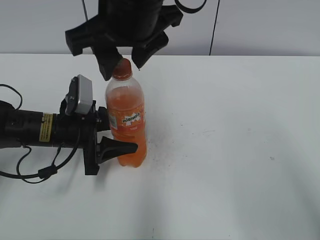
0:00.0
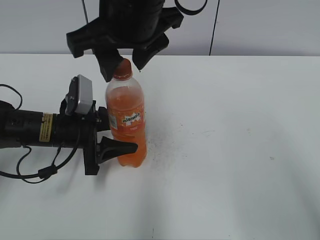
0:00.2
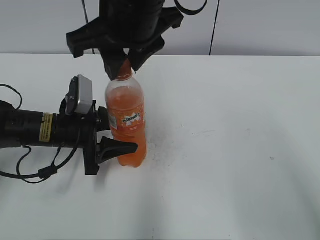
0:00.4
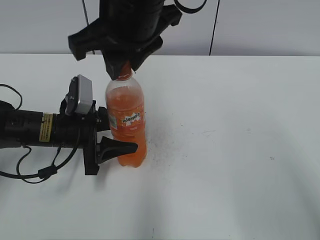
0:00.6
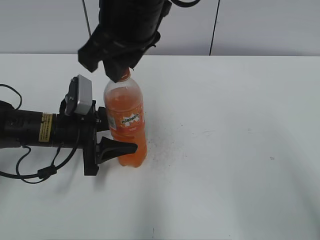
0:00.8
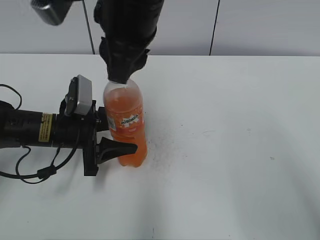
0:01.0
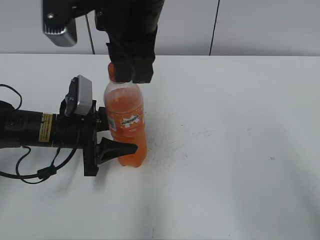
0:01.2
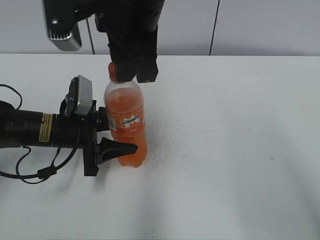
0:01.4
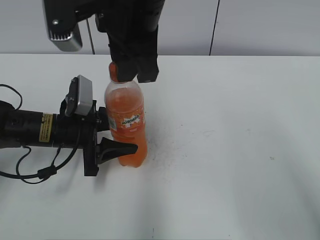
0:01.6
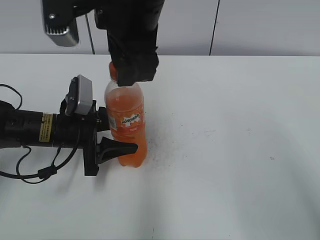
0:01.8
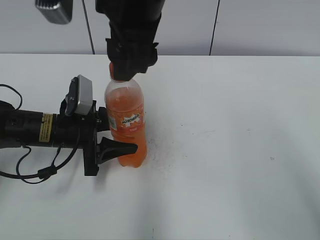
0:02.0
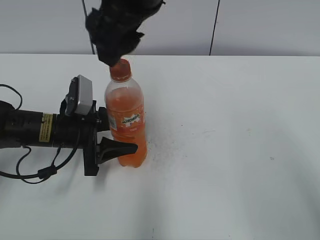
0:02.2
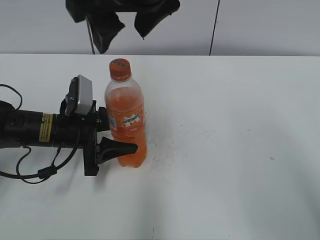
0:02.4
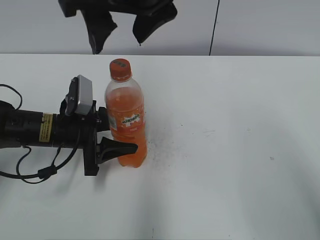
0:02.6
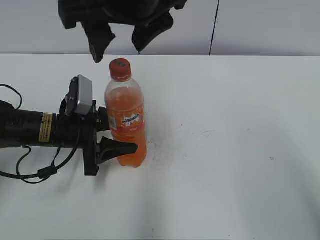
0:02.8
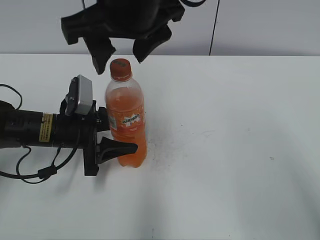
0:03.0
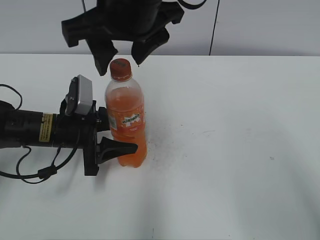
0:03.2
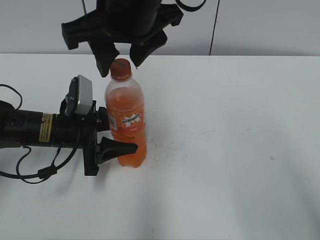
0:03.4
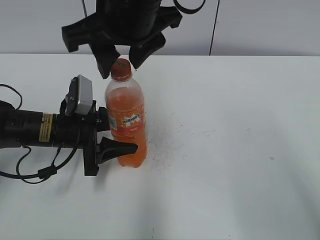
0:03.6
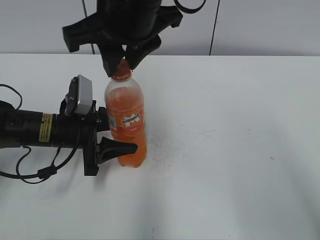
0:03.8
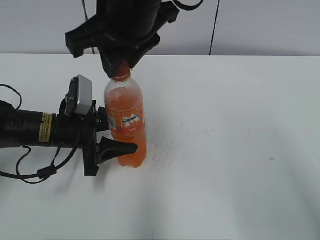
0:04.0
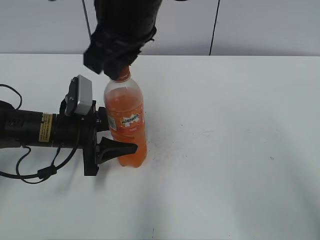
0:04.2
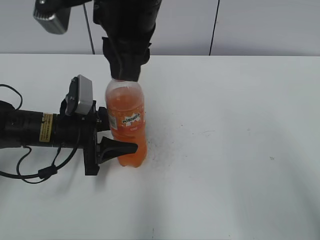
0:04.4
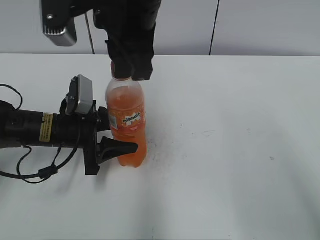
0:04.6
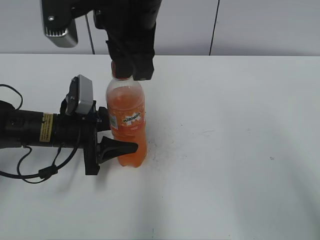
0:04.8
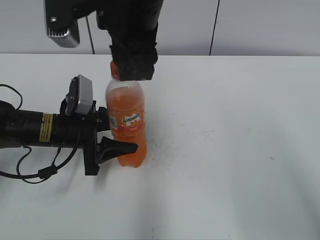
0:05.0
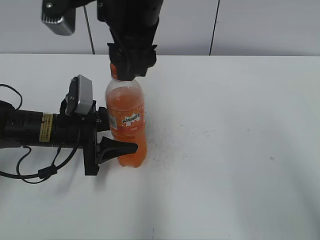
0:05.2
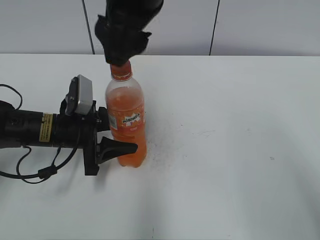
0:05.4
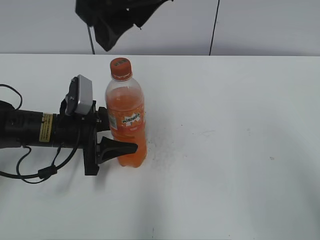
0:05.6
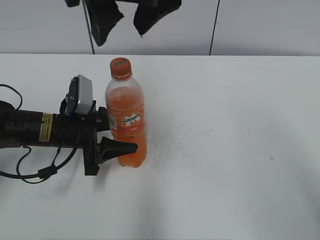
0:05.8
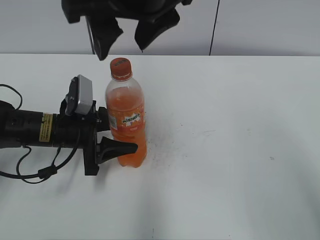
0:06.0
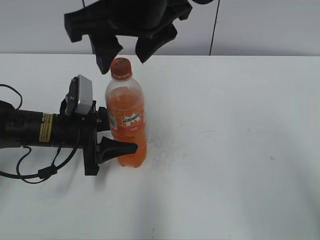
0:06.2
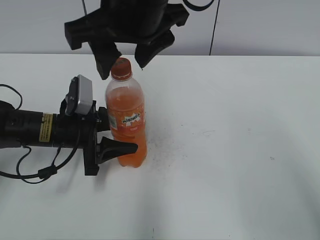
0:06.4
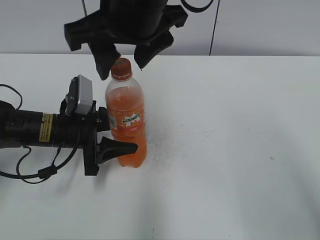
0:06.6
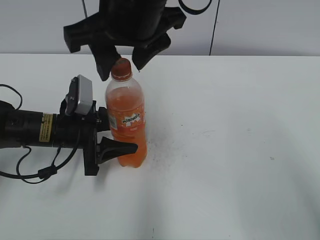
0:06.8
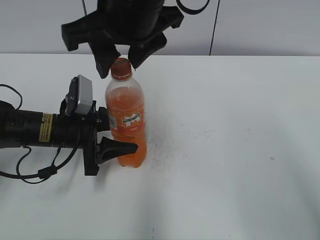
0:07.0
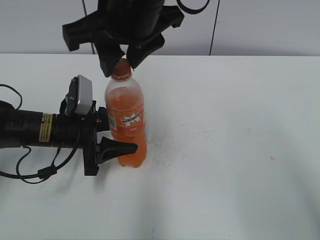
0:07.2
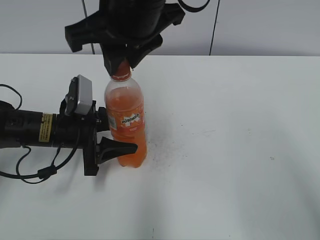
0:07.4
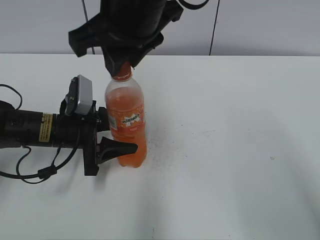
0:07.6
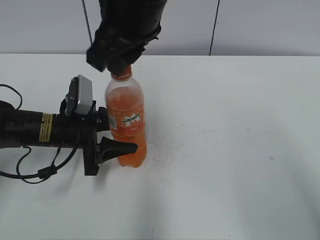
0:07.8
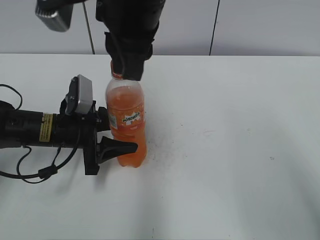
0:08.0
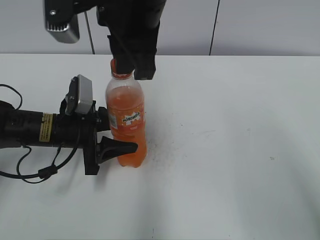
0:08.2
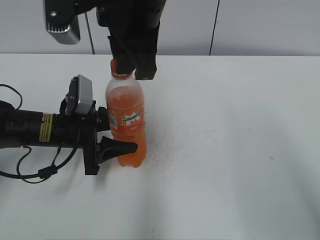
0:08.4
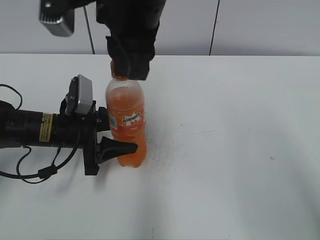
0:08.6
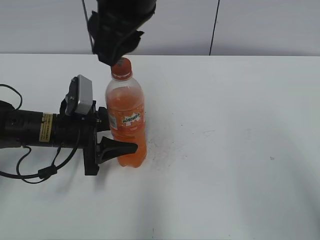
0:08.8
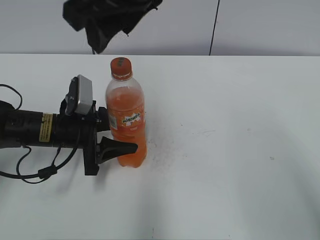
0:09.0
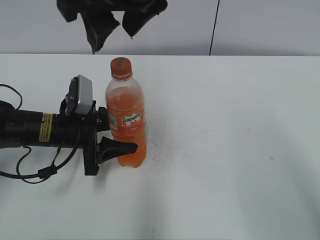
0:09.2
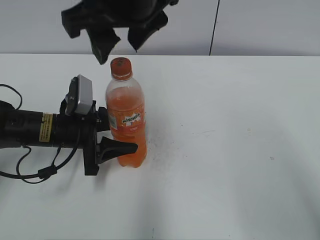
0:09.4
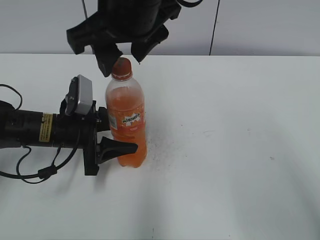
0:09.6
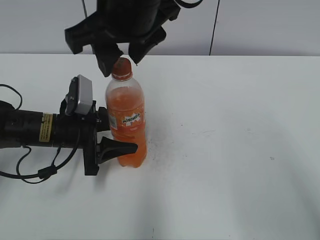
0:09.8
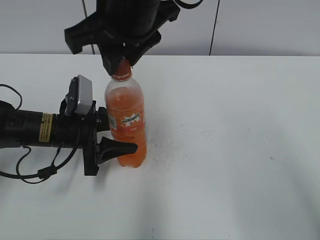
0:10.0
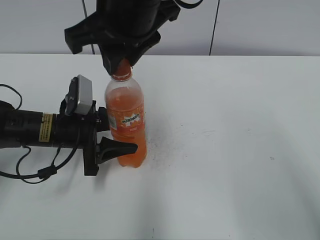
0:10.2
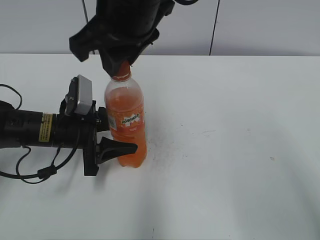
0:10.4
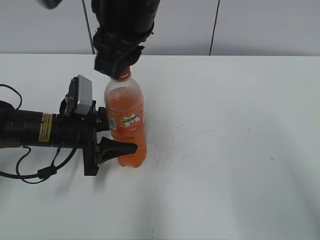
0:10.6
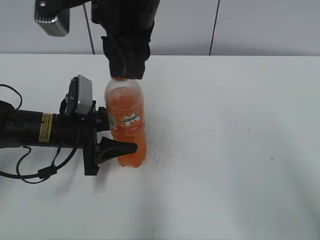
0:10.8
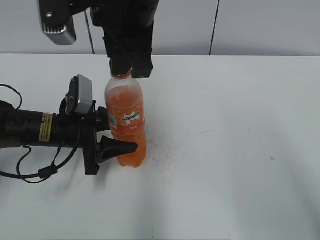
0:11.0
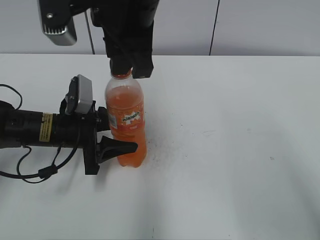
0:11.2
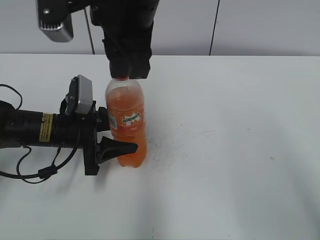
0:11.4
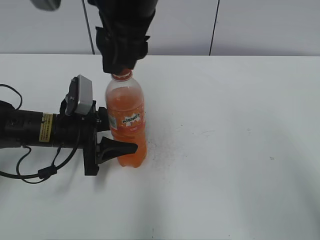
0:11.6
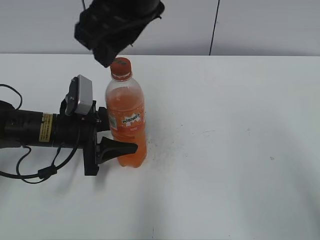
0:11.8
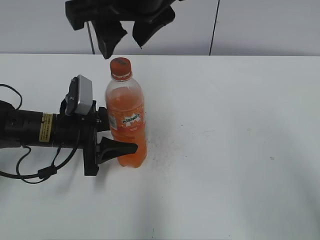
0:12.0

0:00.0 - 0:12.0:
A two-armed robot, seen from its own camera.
0:00.0 - 0:01.6: The right gripper closes.
0:01.6 - 0:03.0: The right gripper opens up.
0:03.0 - 0:04.4: The right gripper closes up.
0:04.4 - 0:06.0: The right gripper opens up.
0:06.0 - 0:07.6: The right gripper closes up.
0:07.6 - 0:09.0: The right gripper opens.
0:09.0 - 0:10.4: The right gripper closes its fingers.
0:10.4 - 0:12.0: The right gripper opens.

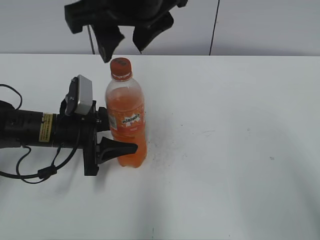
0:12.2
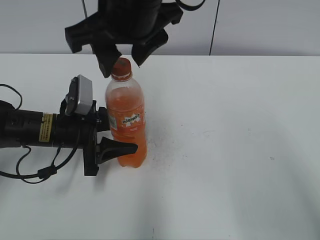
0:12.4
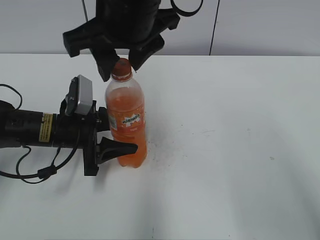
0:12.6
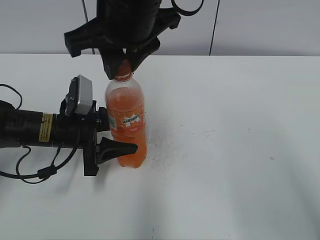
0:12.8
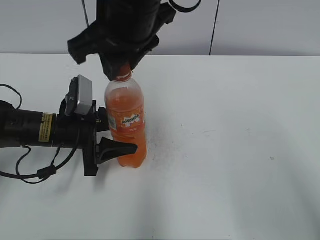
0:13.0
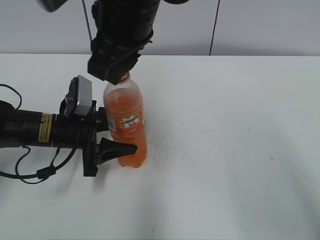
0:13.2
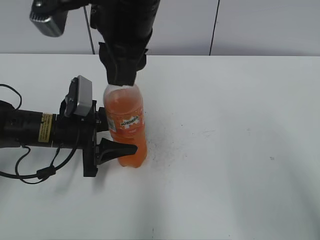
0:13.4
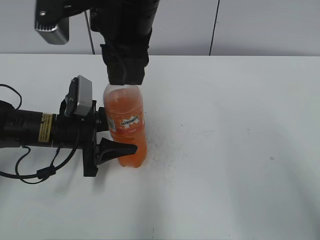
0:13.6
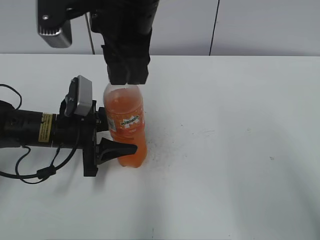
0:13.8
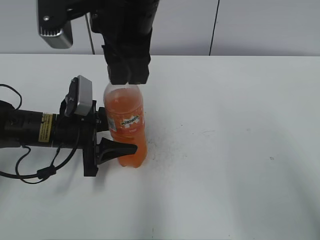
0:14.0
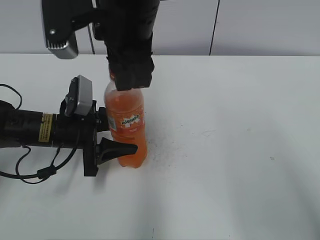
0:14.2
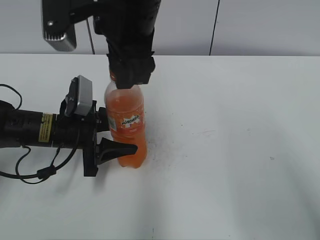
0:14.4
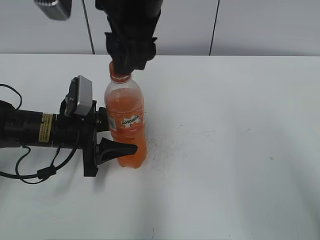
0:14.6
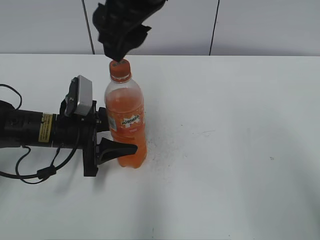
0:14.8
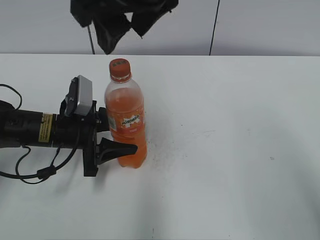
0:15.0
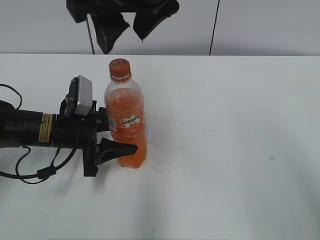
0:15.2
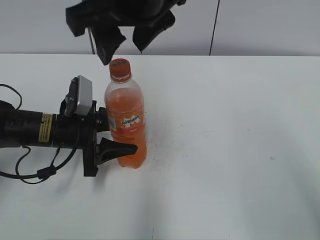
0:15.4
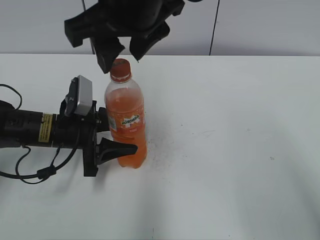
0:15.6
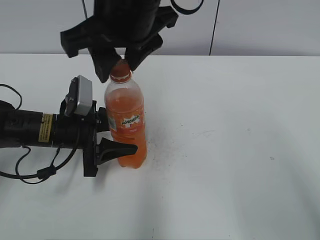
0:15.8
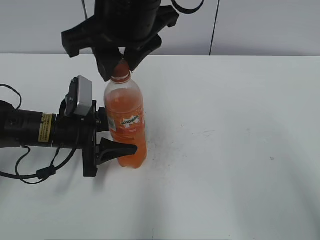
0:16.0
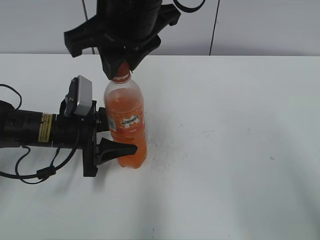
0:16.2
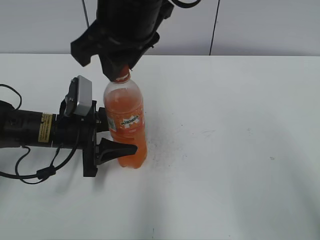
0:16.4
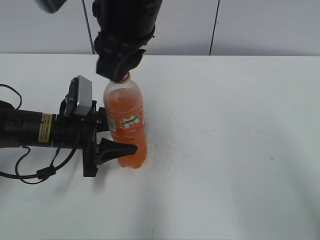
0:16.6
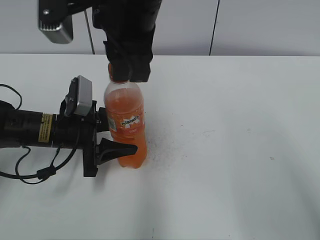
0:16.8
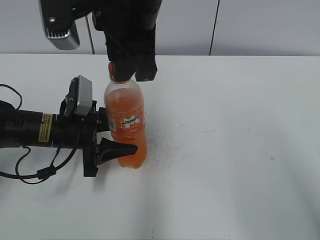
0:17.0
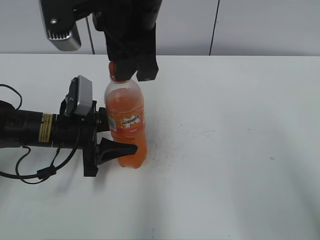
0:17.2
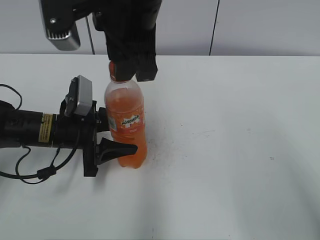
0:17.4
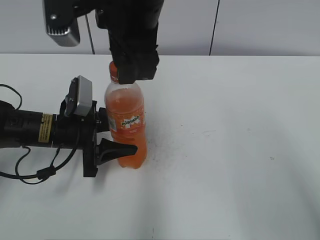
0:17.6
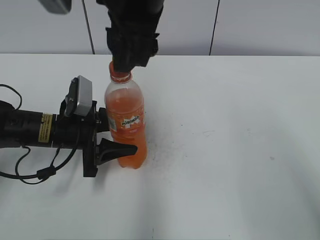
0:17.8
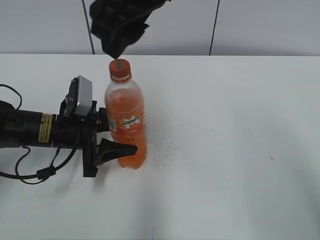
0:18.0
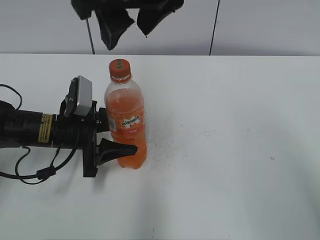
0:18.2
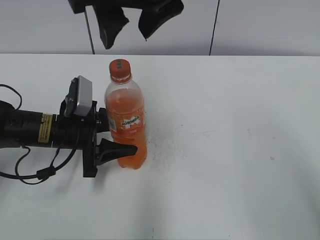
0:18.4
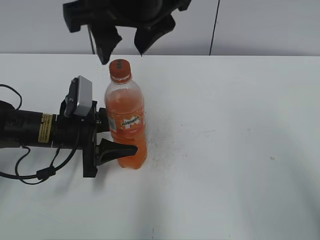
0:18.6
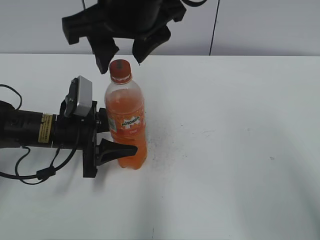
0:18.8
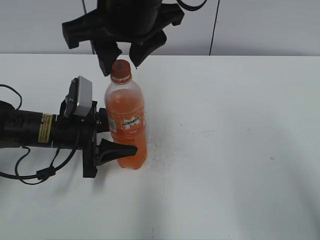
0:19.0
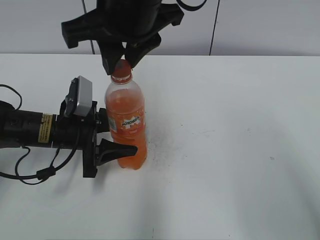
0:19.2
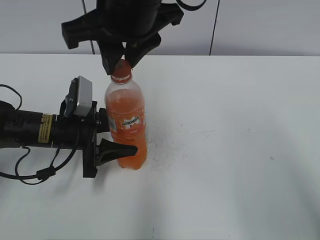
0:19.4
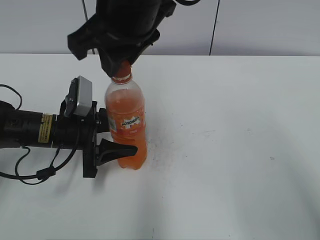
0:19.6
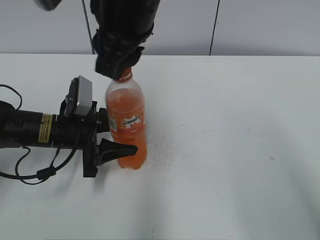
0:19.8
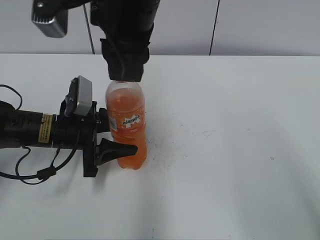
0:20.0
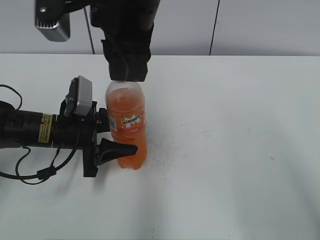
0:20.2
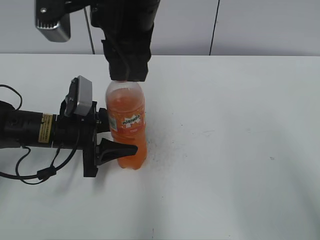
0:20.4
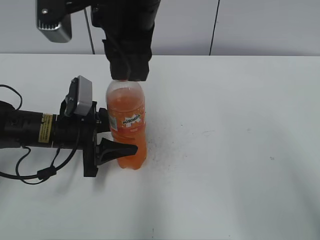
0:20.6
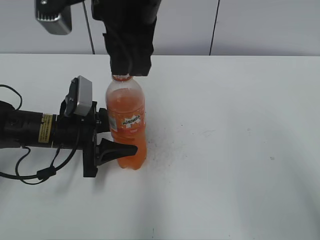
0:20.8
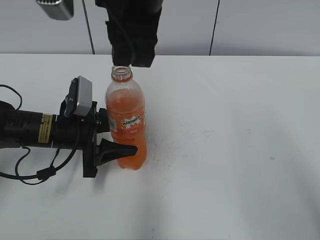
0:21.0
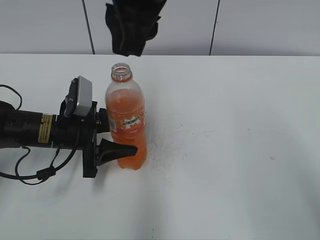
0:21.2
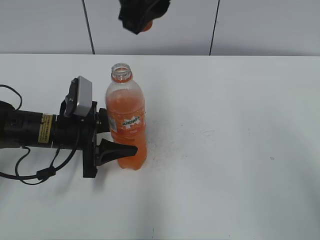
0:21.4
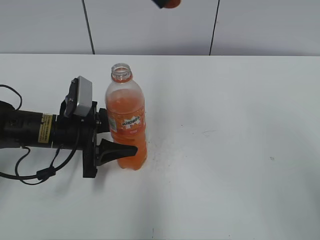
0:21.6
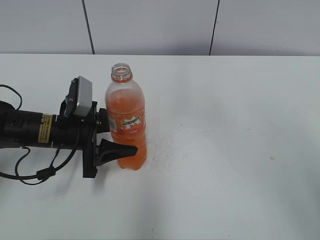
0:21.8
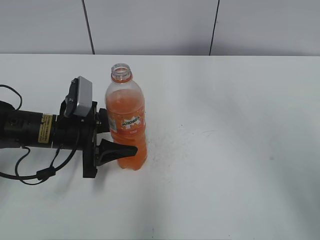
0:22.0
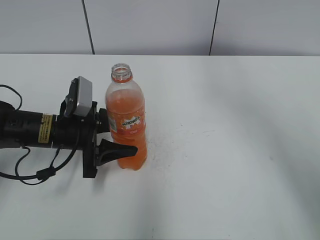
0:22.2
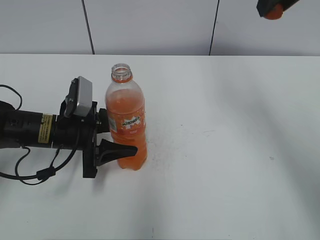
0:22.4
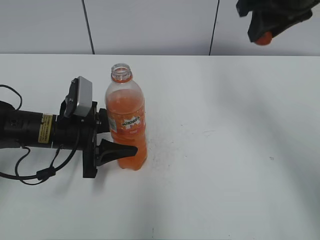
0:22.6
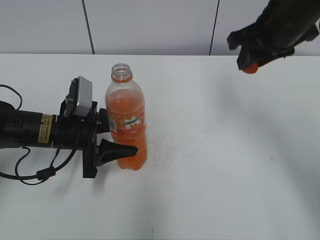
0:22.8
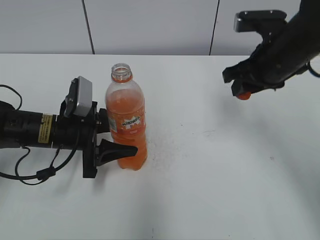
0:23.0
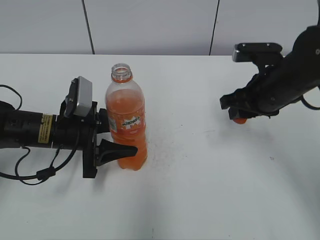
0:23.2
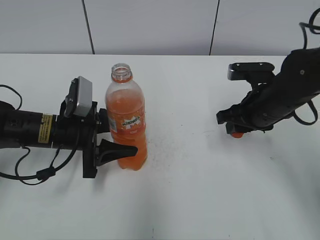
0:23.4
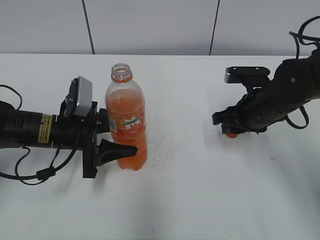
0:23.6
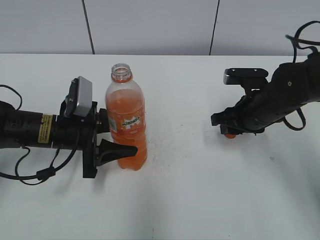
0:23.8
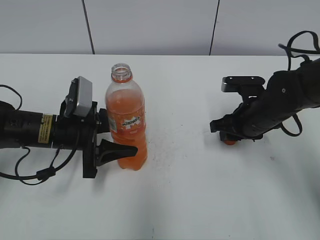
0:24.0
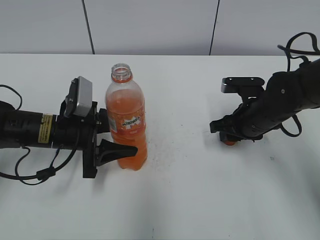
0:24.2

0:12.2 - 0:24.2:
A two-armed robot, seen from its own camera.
0:12.2 - 0:13.8: The right gripper closes its fingers.
0:13.8 - 0:15.2: The right gripper shifts by roughly 5 cm, and opens up.
0:15.2 - 0:16.6: The right gripper closes its fingers.
0:16.6 - 0:18.2: The right gripper opens up.
0:18.2 - 0:19.8: The right gripper closes its fingers.
0:21.2 - 0:22.6: The right gripper goes approximately 20 cm to the right and forward.
0:22.6 - 0:24.2: The right gripper travels downward by about 25 cm.
